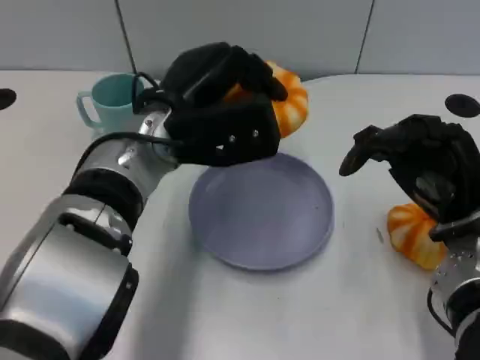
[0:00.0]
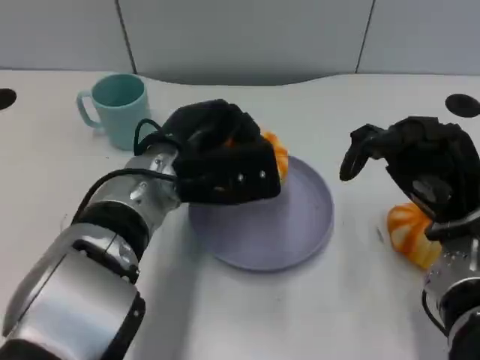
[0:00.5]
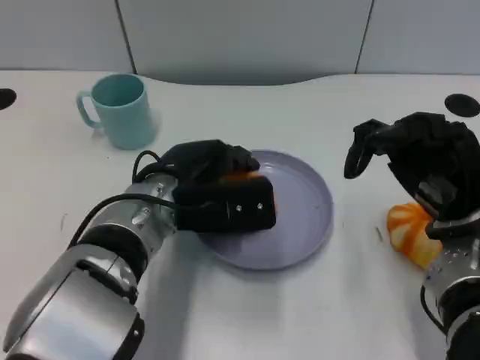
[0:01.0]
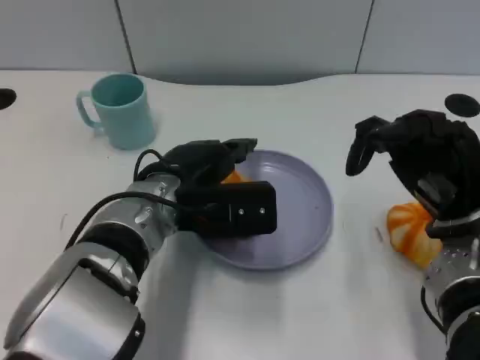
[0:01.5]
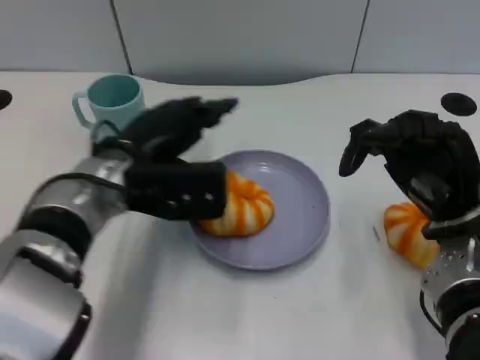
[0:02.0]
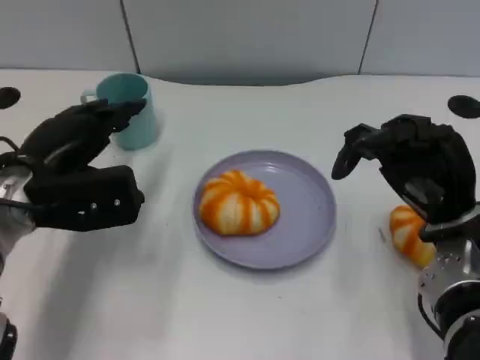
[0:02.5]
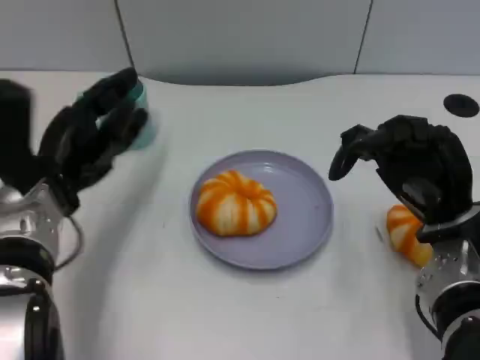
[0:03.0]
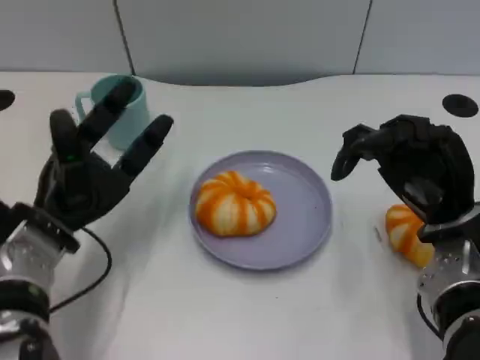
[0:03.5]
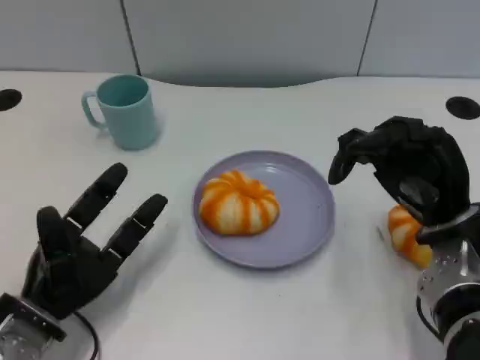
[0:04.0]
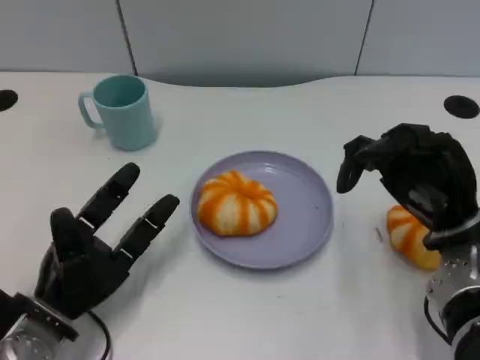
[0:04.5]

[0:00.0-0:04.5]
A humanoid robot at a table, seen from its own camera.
Task of the whole recording: Grasp the bread from the table and place it into the plate.
0:00.0 to 0:02.0: The left hand goes some 5 cm to the left.
0:02.0 to 0:04.5: The left hand moves downward, backward and to the left, roughly 15 cm.

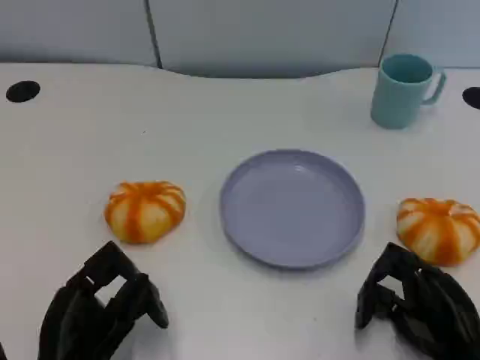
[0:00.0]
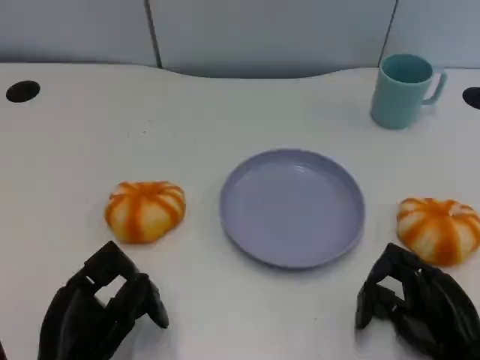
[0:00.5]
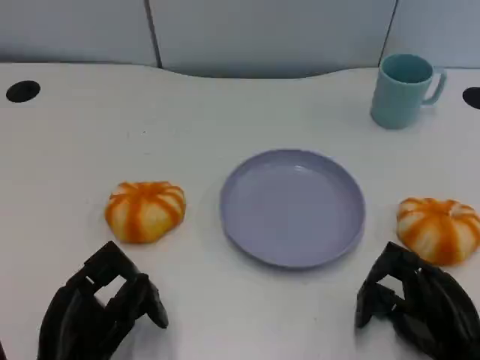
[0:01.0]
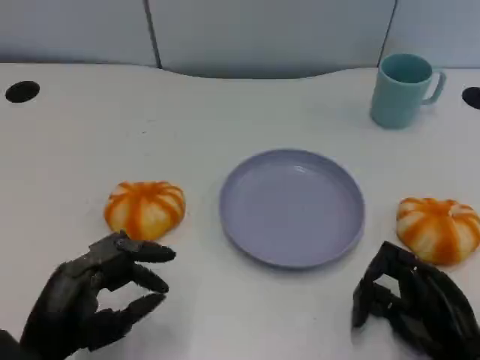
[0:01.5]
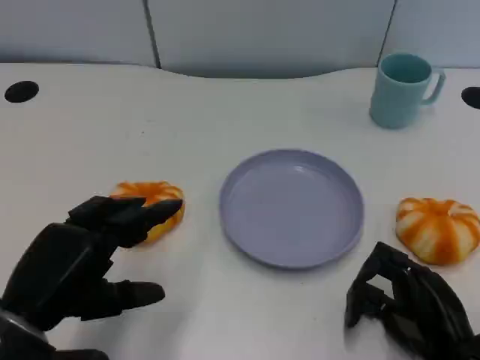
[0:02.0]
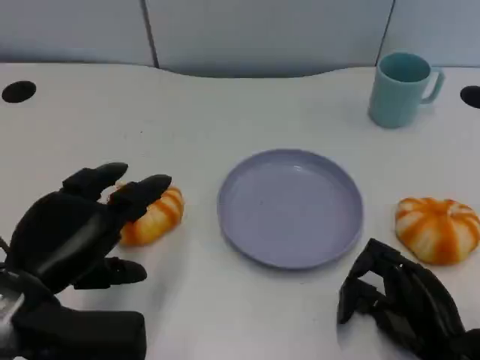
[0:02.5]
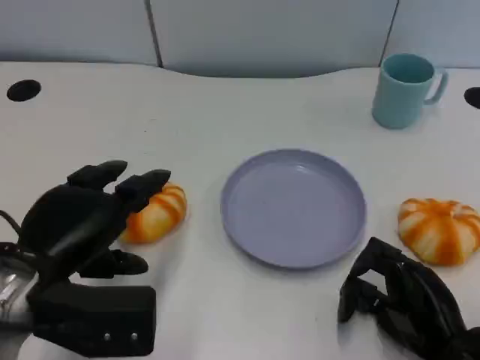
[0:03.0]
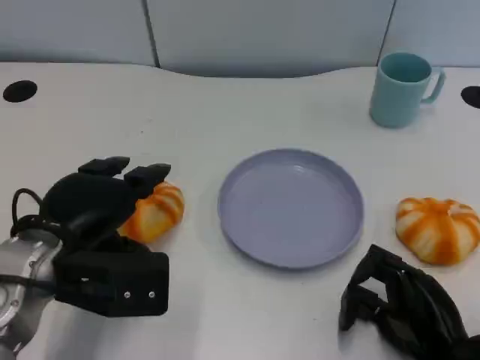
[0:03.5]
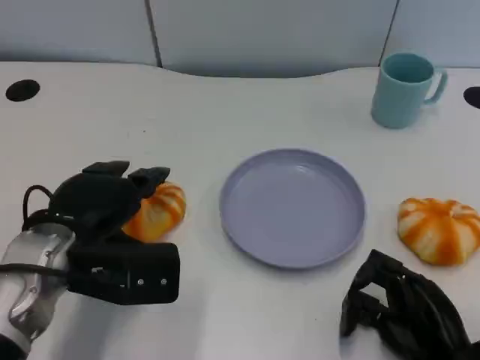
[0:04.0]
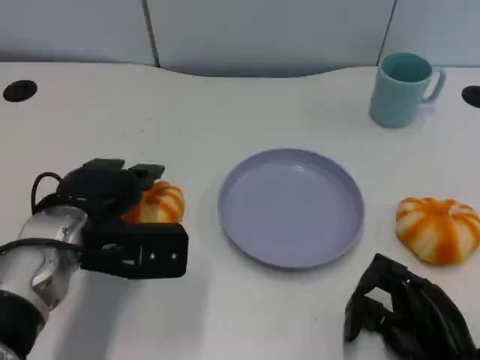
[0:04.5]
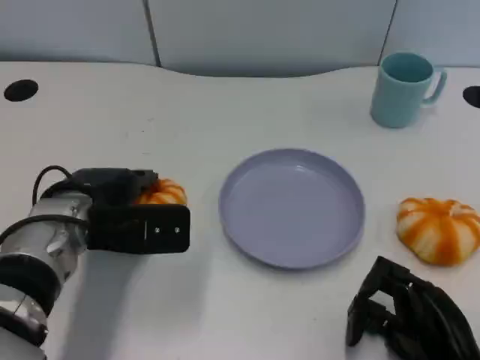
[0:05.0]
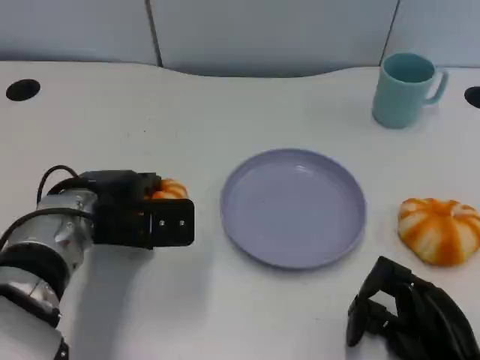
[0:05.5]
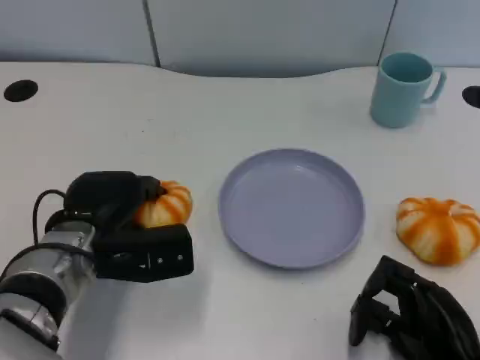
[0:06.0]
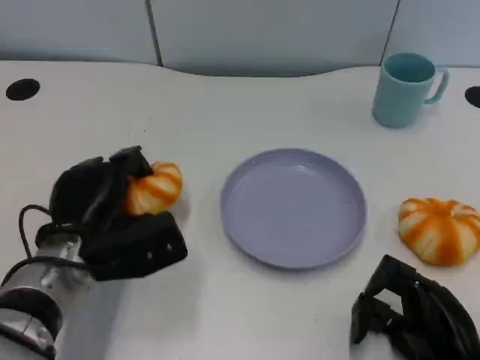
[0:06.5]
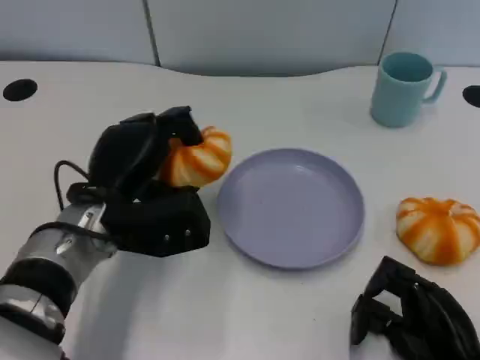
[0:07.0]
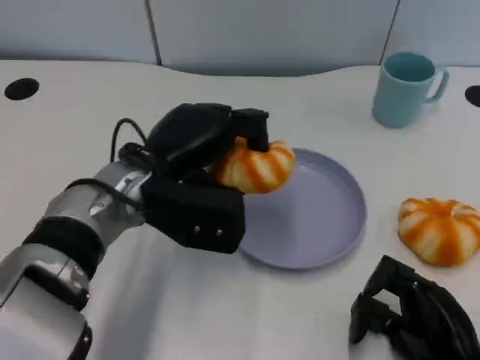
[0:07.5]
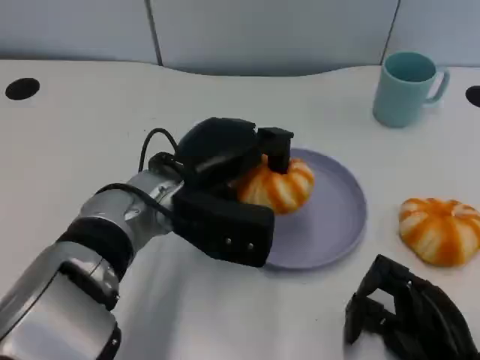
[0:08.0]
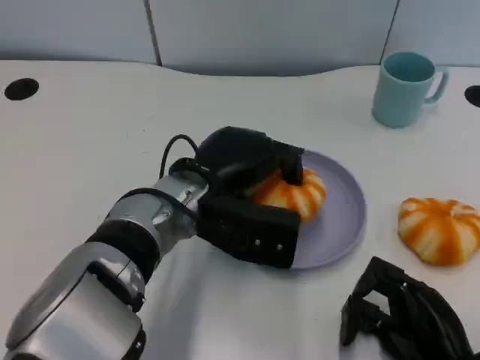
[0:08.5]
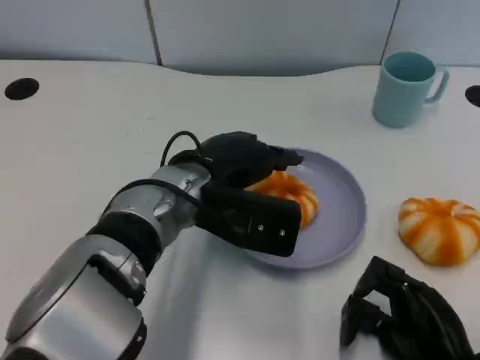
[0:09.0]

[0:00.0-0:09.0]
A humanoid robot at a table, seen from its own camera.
Task of the whole recording: Grasp the bread from the table and place it into the plate.
0:00.0 to 0:02.0: The left hand heads upward, covering some 10 cm.
0:02.0 to 0:04.5: The left hand moves forward, about 10 cm.
0:07.0 to 0:09.0: The left hand goes approximately 10 cm to the right.

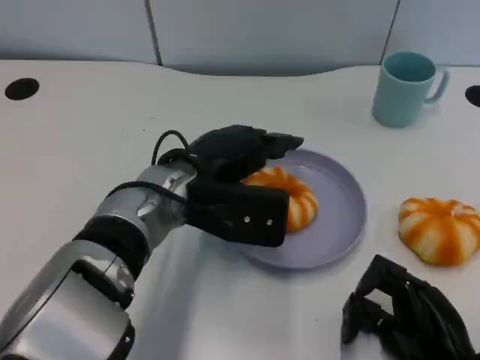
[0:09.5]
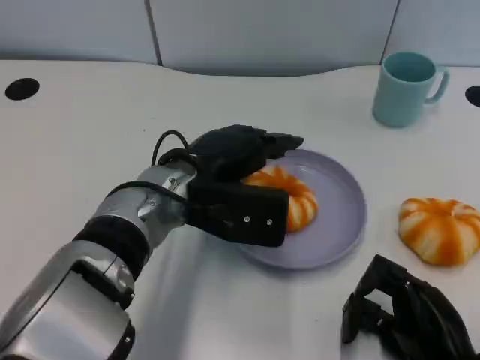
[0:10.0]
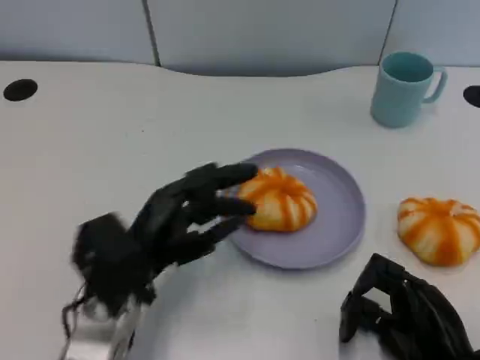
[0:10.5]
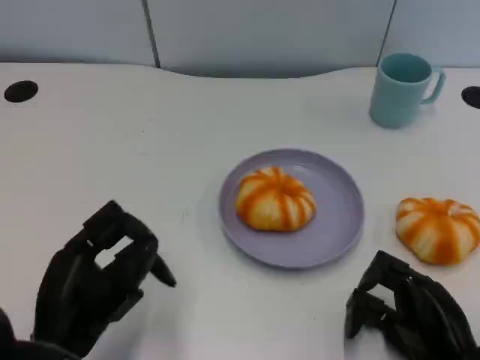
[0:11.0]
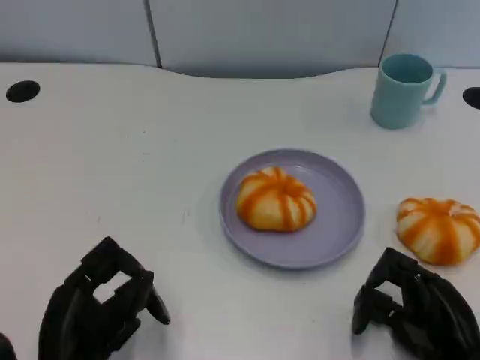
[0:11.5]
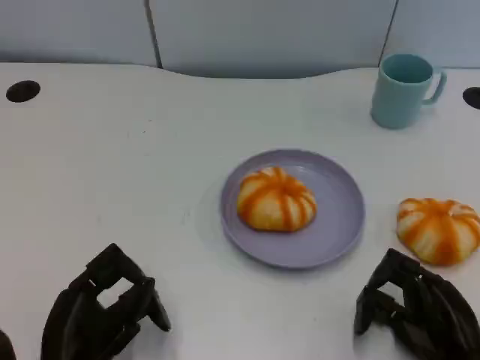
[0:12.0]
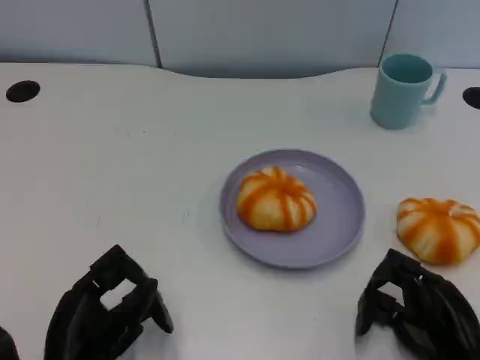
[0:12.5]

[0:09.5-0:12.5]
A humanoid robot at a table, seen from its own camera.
Task of the whole recording: Grasp the bread from the table and place it into the plate.
0:09.5 to 0:11.0: The left hand moves backward and to the left, approximately 20 cm.
0:11.0 to 0:12.5: There are only small adjustments of the hands.

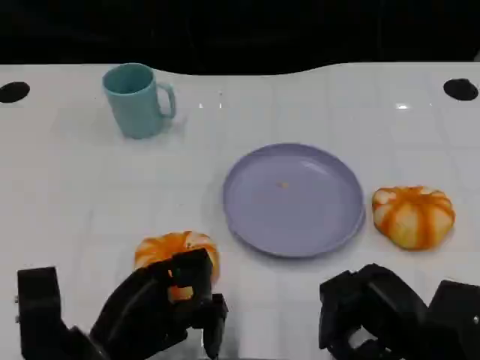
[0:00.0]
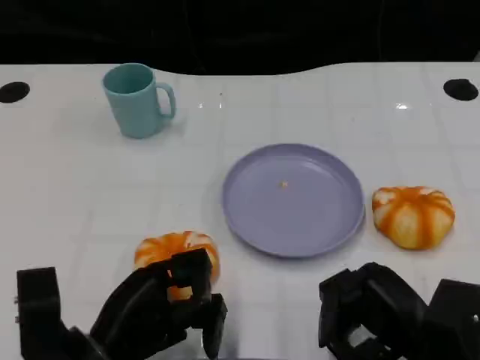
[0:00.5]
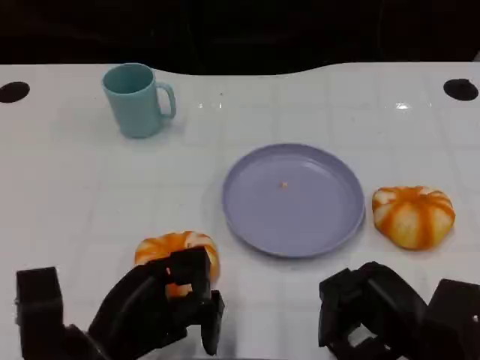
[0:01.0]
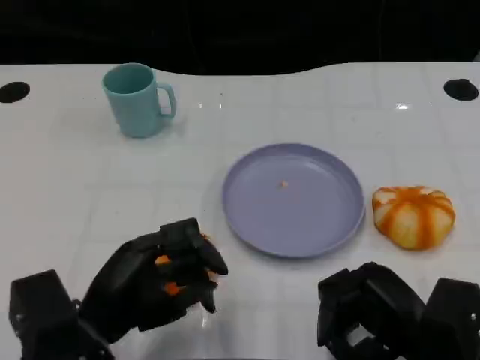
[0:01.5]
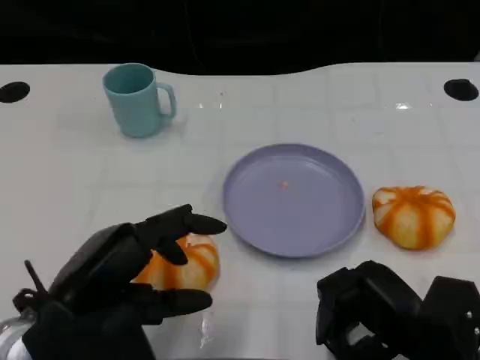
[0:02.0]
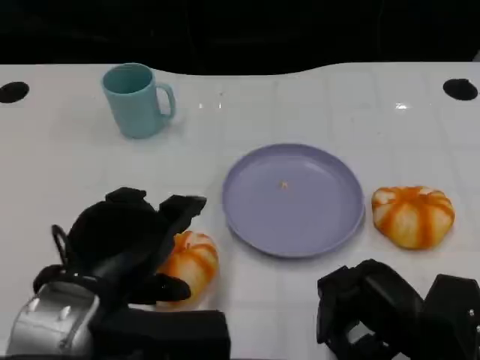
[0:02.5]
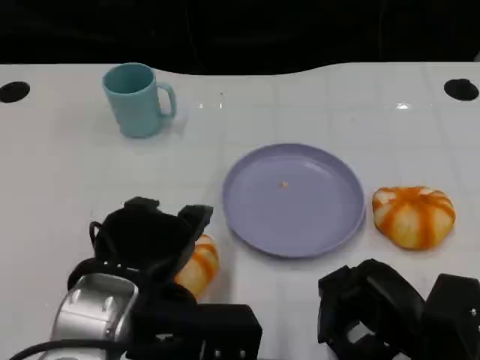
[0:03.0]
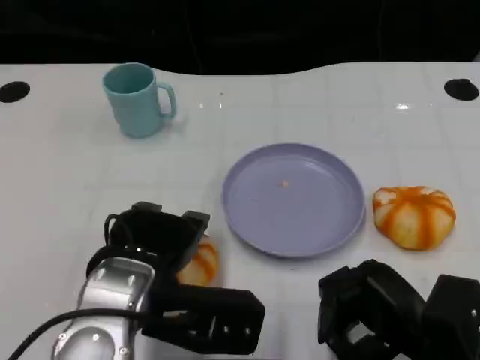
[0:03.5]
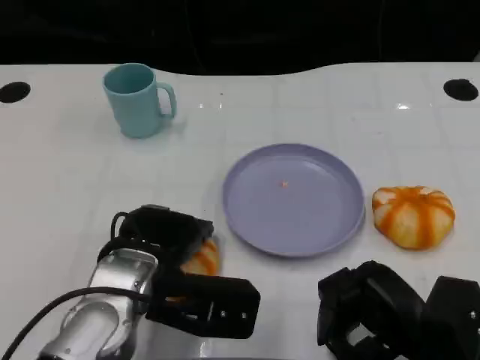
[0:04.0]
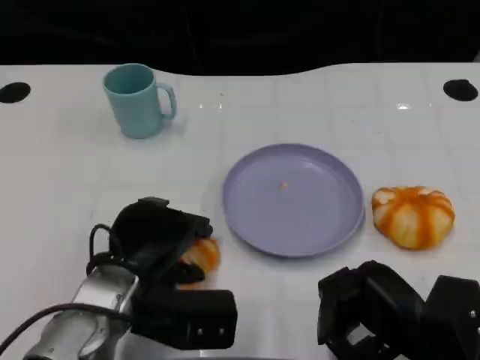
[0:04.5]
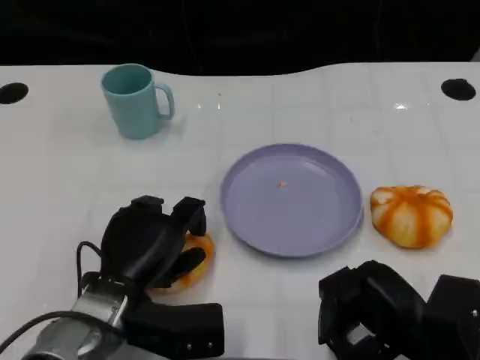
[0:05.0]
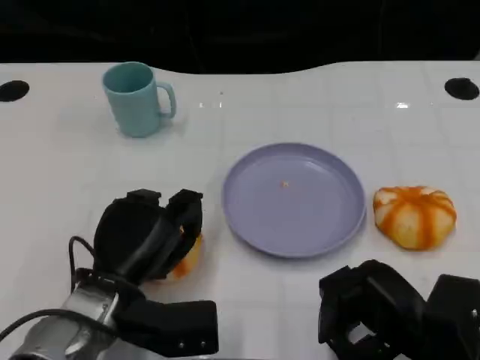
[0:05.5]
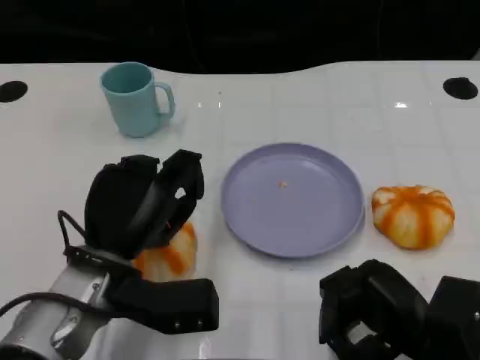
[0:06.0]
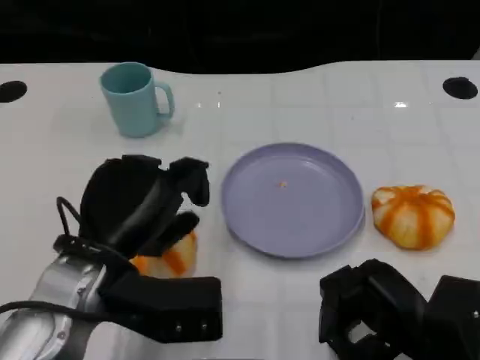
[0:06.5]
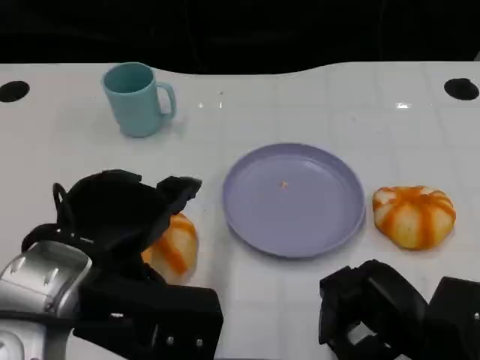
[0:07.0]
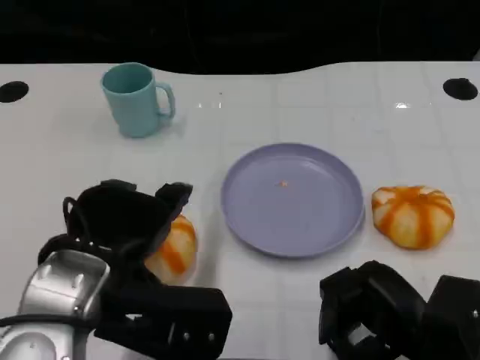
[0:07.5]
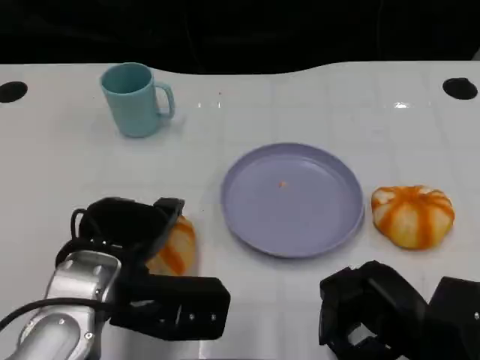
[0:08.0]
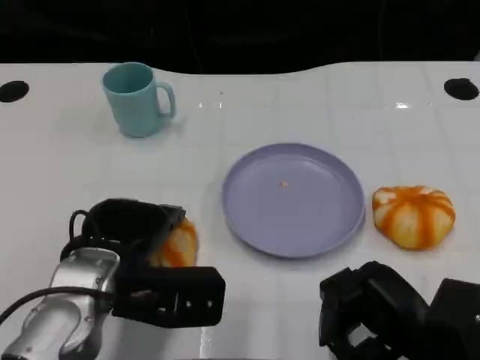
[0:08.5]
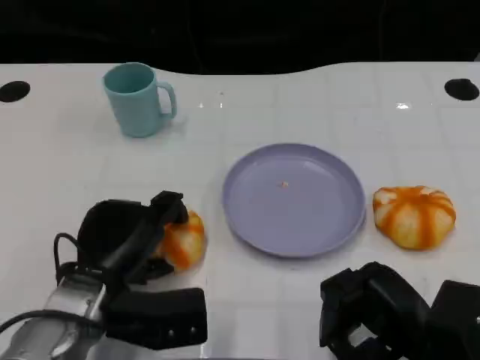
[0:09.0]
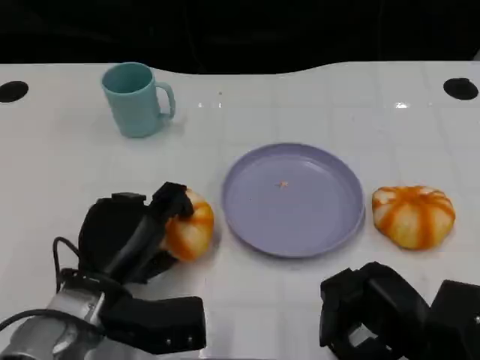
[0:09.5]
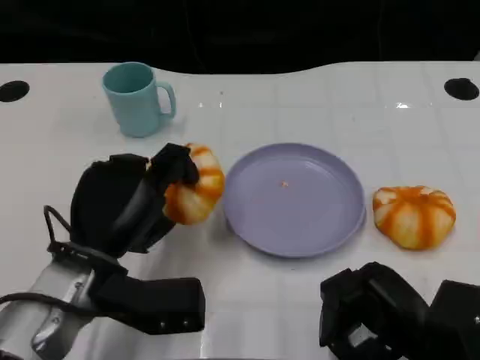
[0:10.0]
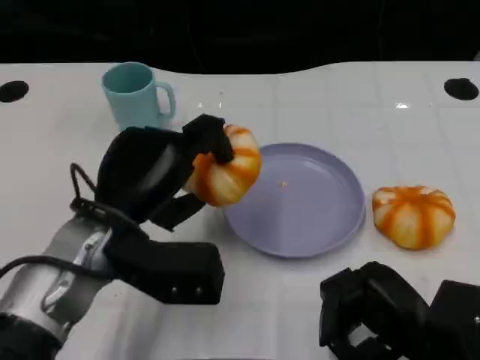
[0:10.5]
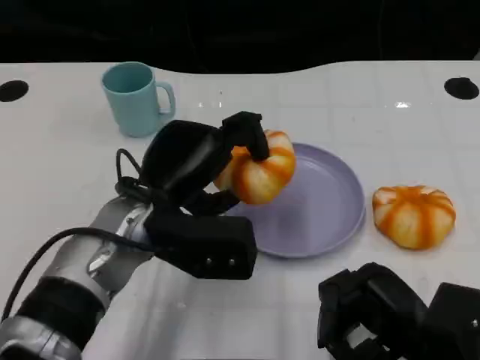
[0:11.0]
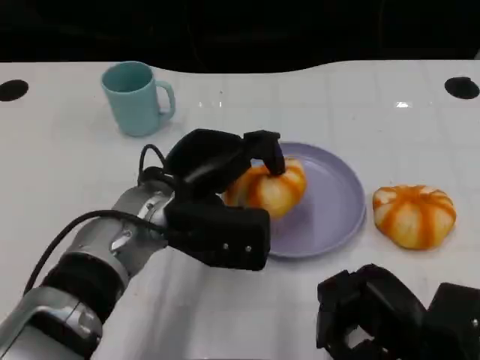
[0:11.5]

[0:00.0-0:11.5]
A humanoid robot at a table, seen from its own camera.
Task of the whole recording: Grasp the bread from the table and place it into the plate.
0:00.0 to 0:02.0: The left hand goes some 10 cm upward.
0:02.0 to 0:04.0: The left hand goes approximately 10 cm to the right and forward.
0:06.0 to 0:07.5: The left hand goes roughly 5 cm upward.
0:07.5 to 0:09.5: The left hand heads downward, covering some 10 cm.
0:09.5 to 0:11.5: The left hand shifts about 10 cm upward, to the right and forward.
